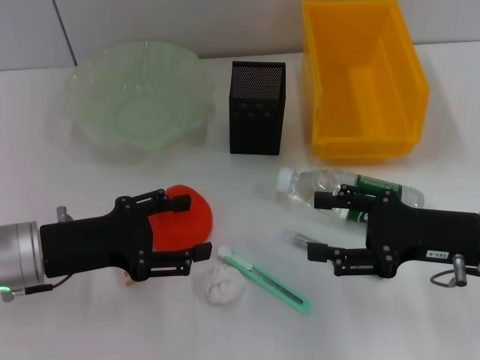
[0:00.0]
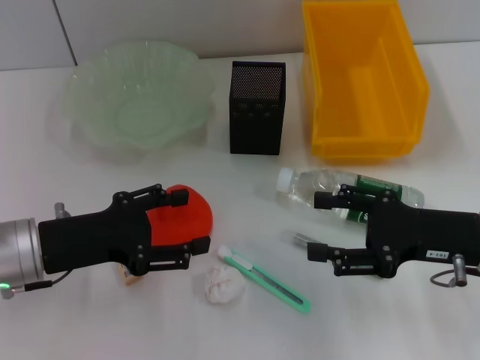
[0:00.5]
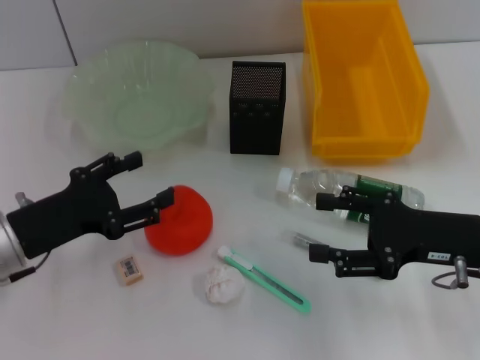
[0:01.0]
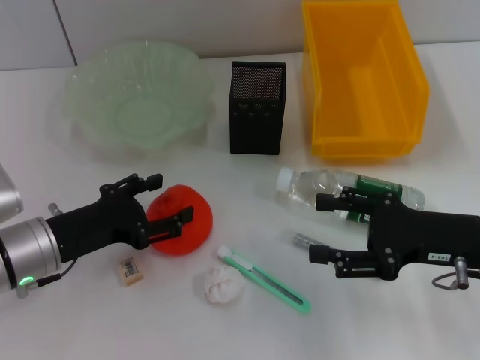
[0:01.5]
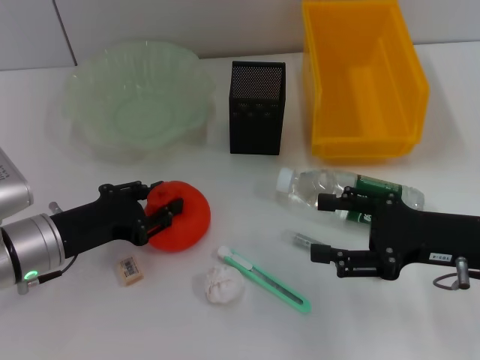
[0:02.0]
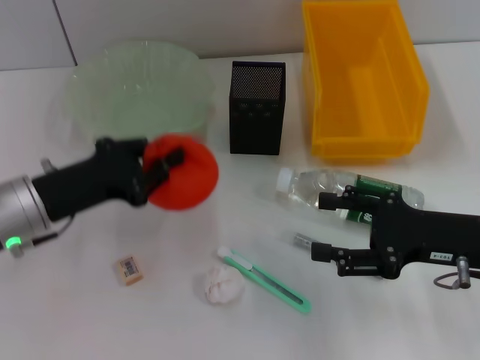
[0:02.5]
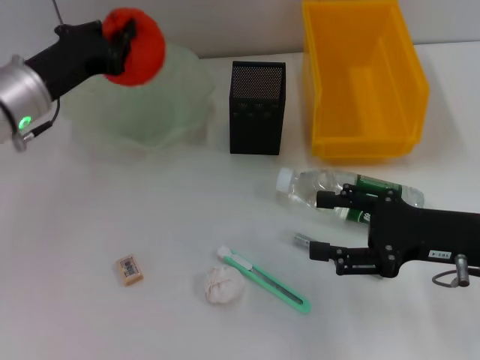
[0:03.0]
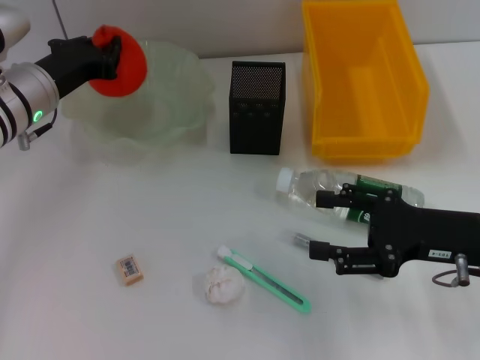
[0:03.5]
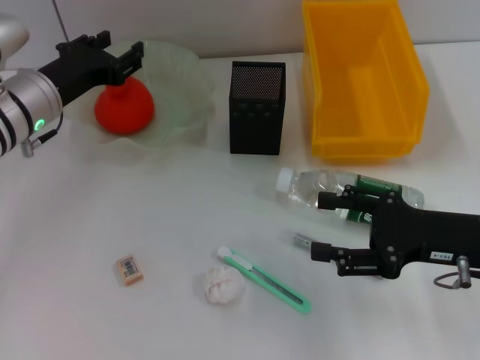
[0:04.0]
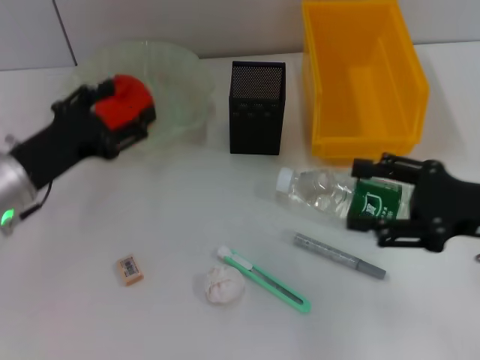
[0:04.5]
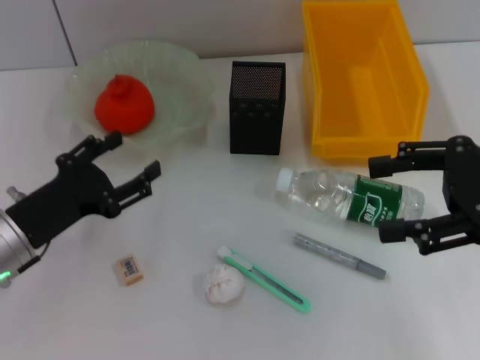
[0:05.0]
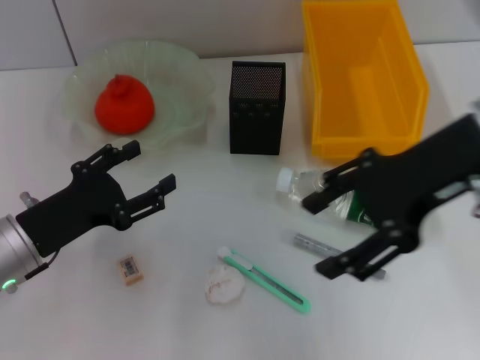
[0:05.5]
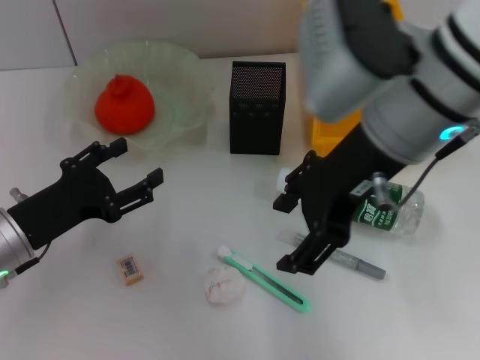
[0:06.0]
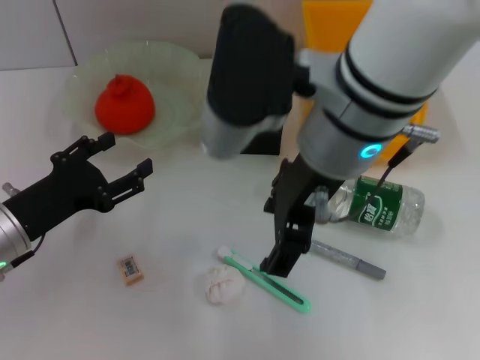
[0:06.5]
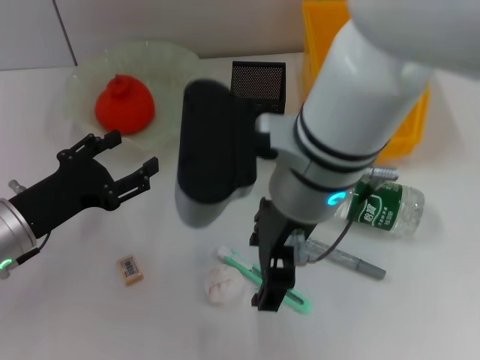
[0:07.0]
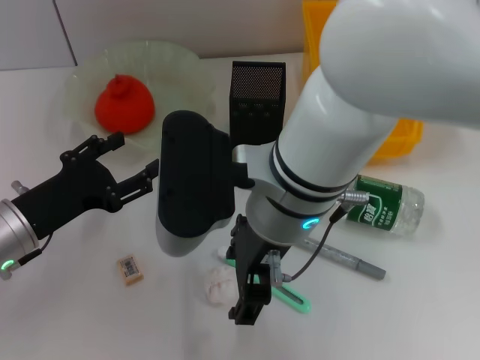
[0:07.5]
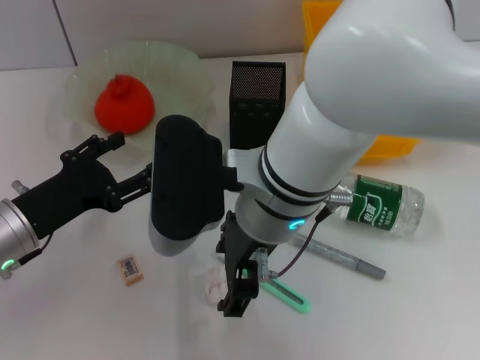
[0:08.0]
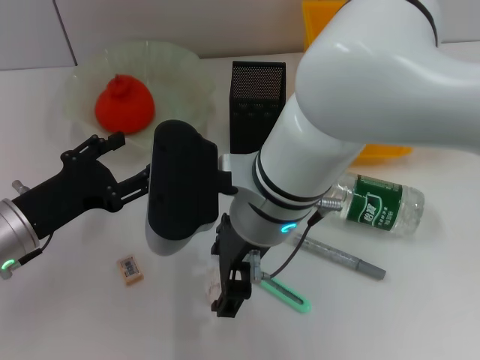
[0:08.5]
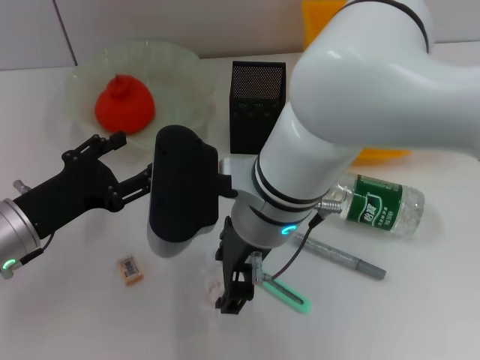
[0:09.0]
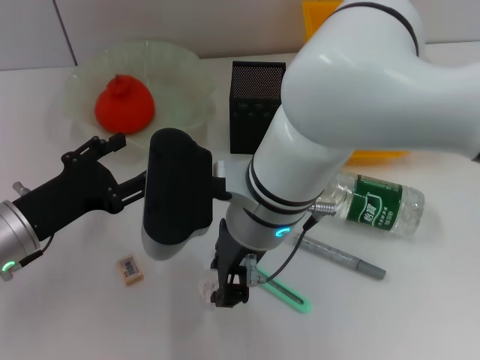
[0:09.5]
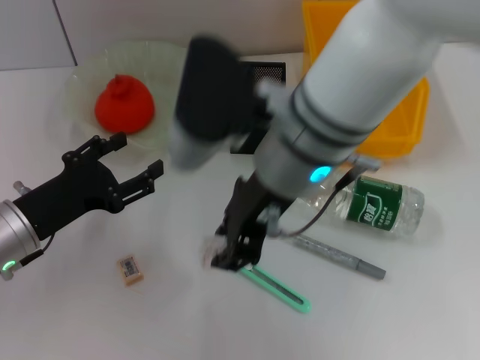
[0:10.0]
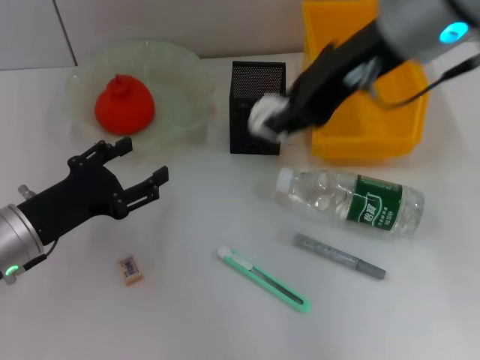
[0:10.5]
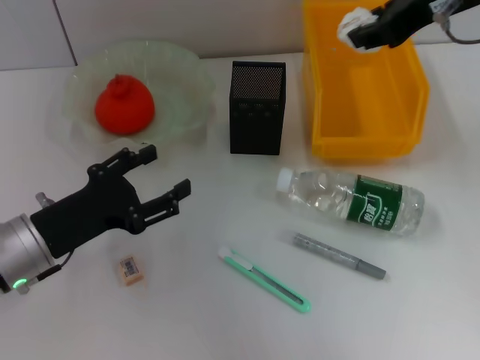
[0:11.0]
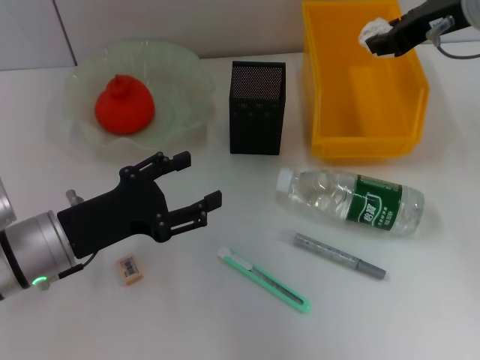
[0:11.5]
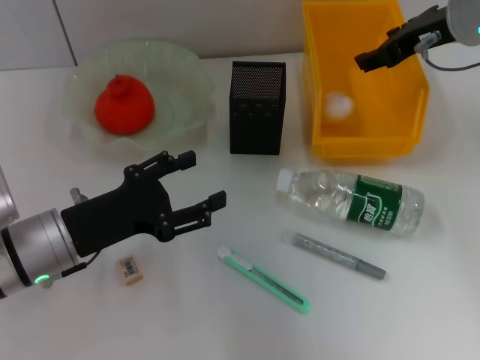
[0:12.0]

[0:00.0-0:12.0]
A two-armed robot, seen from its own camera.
Step, 0:00.0 to 0:02.0: Grab the orange with the left hand.
Step, 0:02.5 to 0:03.5: Place the orange into the fruit bowl with the left hand.
Step, 0:04.5 to 0:09.0: Grab the paper ball with the right hand.
0:00.0 to 0:02.0: The left gripper closes up.
0:02.0 to 0:04.0: The left gripper goes approximately 15 cm forward and upward.
0:04.0 to 0:06.0: The left gripper shifts roughly 15 cm backward and downward, and opens. The right gripper is displaced upward and to the left by roughly 25 cm.
0:06.0 to 0:08.0: The right gripper moves to the left and downward, some 15 cm.
0:08.0 to 0:10.0: The right gripper closes.
0:10.0 to 0:12.0: The right gripper moves to the right and forward, roughly 20 cm.

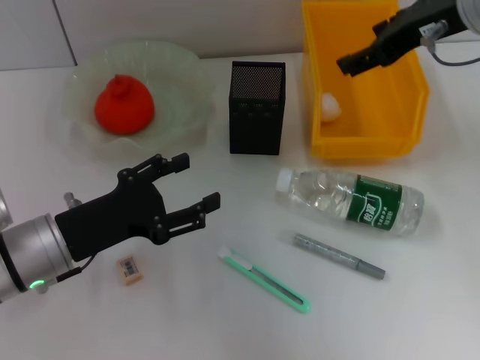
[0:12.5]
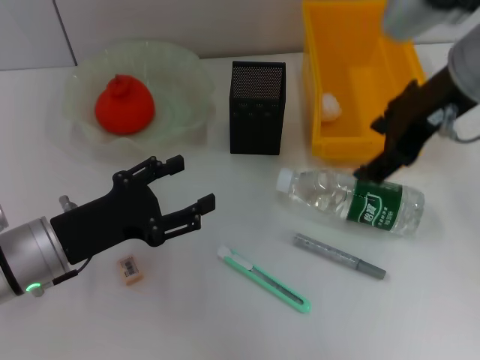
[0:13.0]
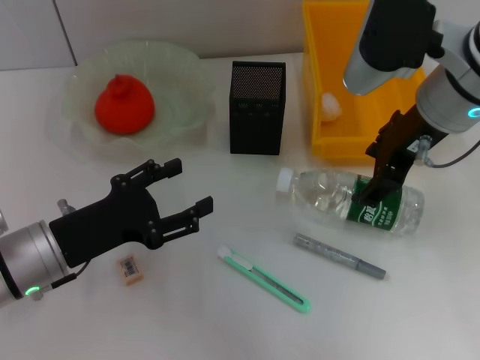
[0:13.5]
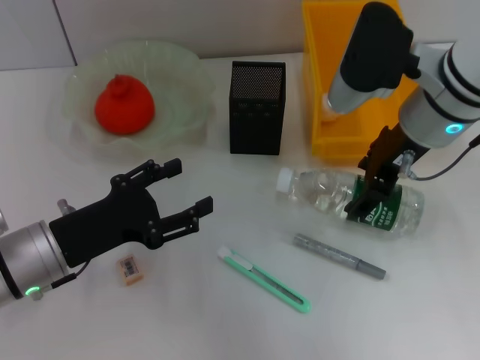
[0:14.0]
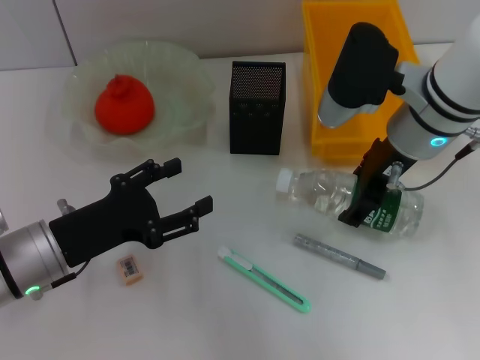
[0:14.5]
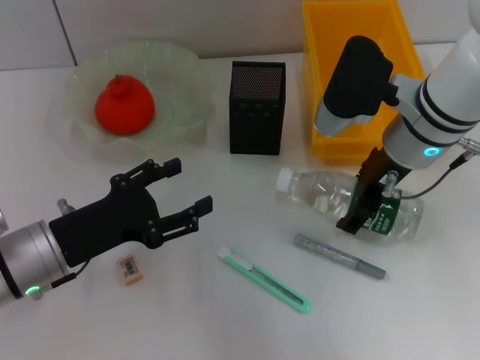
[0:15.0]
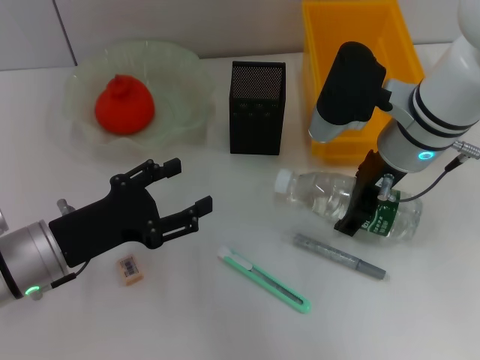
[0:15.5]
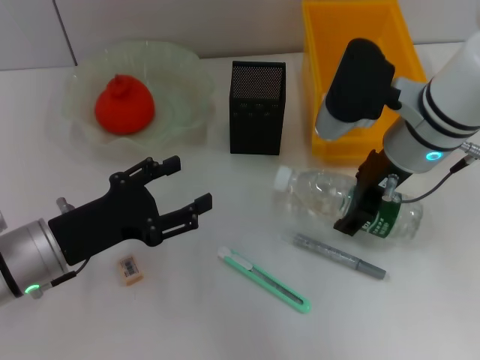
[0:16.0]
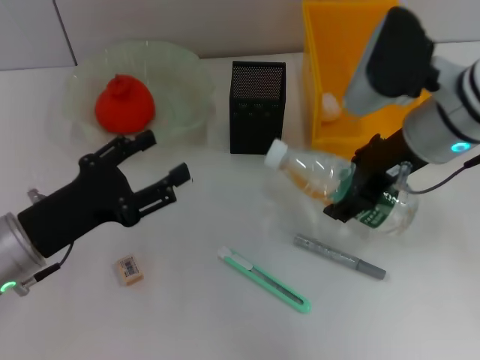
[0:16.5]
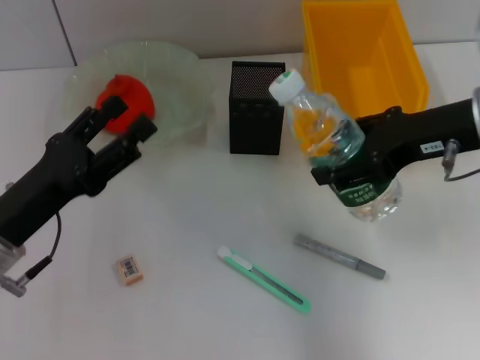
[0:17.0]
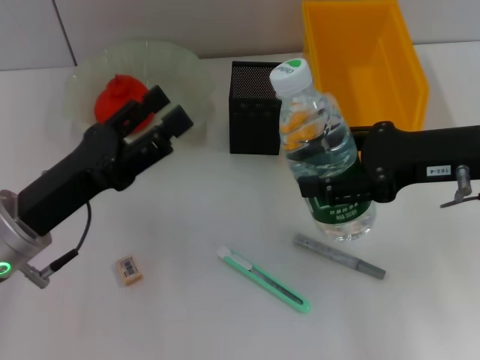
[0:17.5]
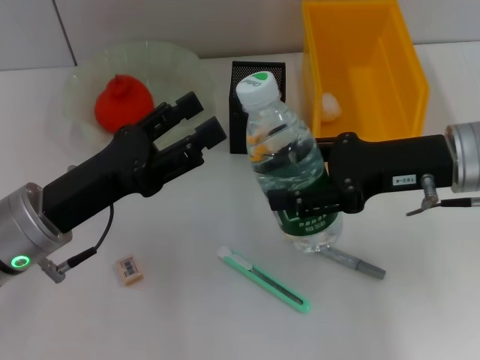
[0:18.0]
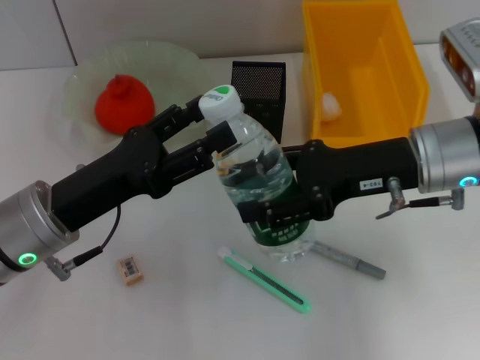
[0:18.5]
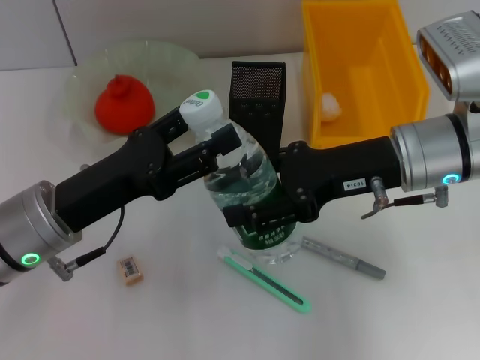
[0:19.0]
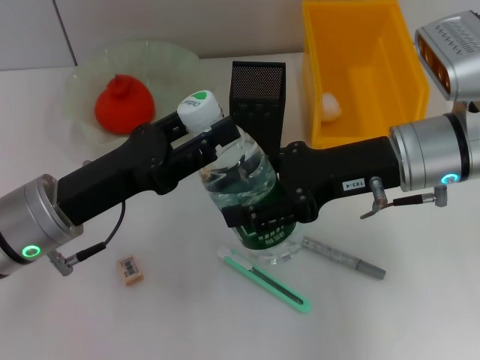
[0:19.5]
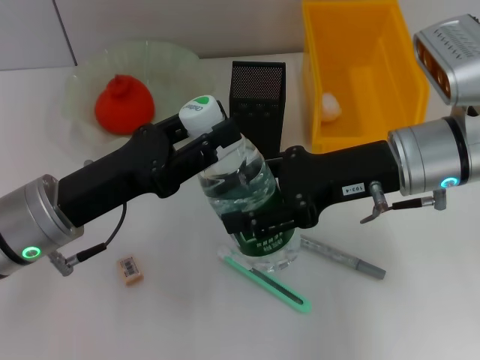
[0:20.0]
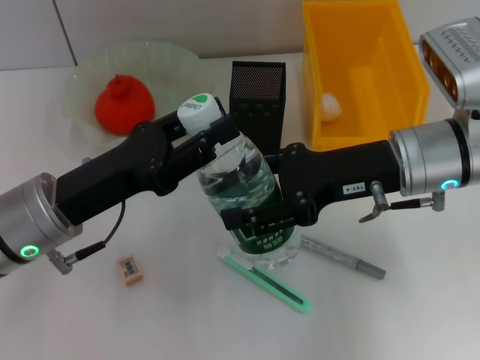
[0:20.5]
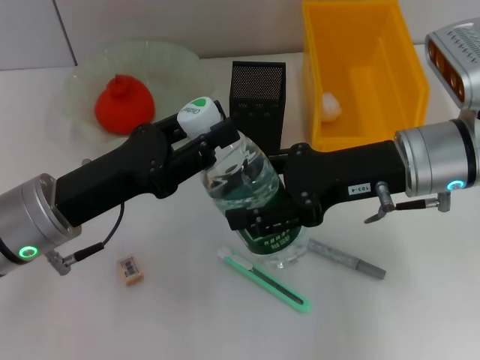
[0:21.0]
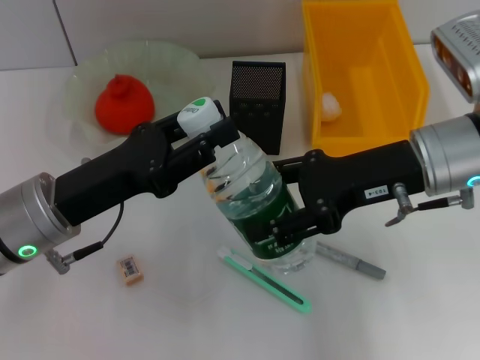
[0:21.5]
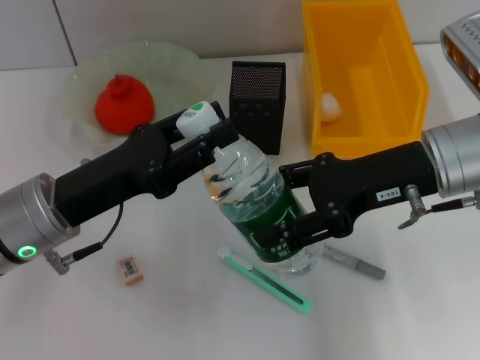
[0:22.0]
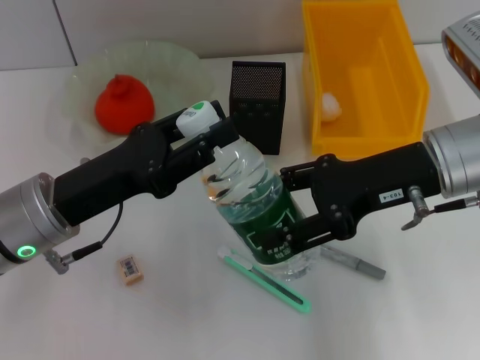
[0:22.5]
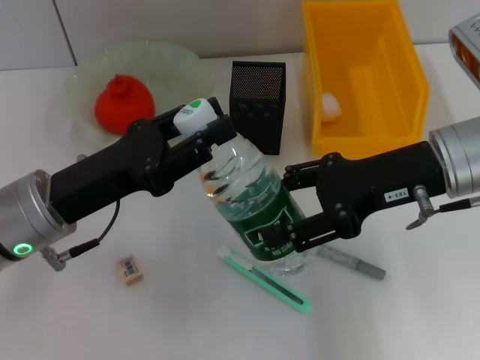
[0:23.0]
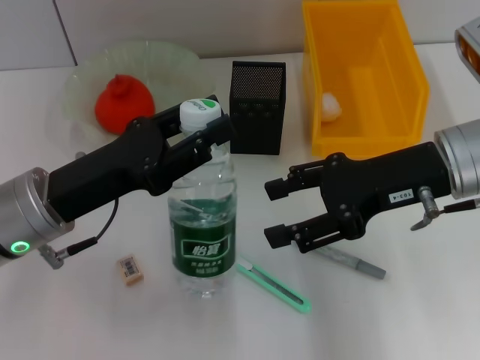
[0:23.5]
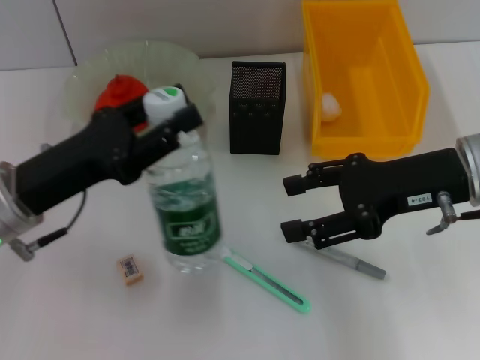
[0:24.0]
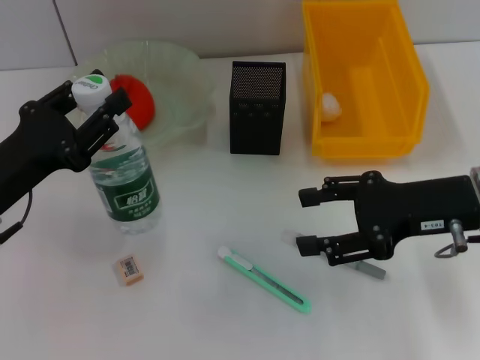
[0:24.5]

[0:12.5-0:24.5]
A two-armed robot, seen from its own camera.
Step, 0:12.5 to 0:15.5: Grab the water bottle with the right hand.
Step, 0:16.0 to 0:23.0: Pass the water bottle from the right hand to the left hand.
0:12.5 to 0:14.5: The right gripper is displaced downward by approximately 10 cm.
0:14.5 to 0:16.5: The grippers stay close to where they were, moving slightly.
0:18.5 to 0:20.5: The left gripper closes up.
0:20.5 to 0:22.5: The grippers move only a little.
0:22.5 to 0:24.5: The left gripper is displaced to the left by some 5 cm. The right gripper changes place by about 5 cm.

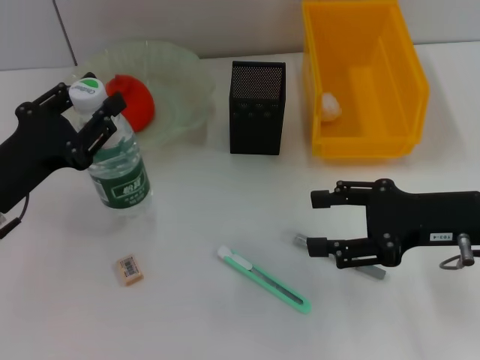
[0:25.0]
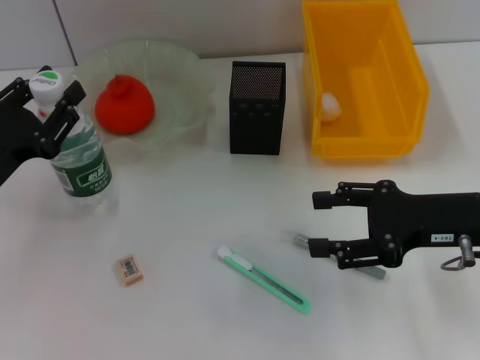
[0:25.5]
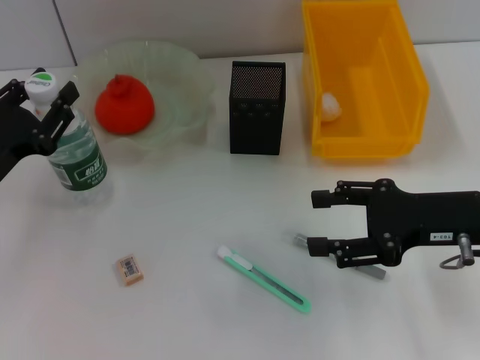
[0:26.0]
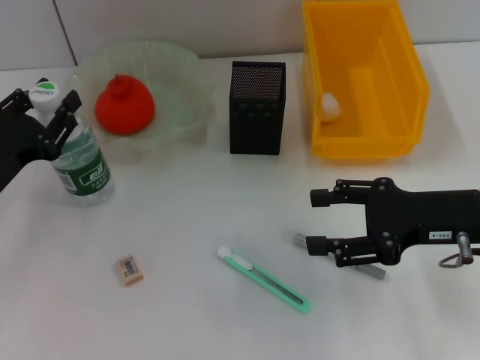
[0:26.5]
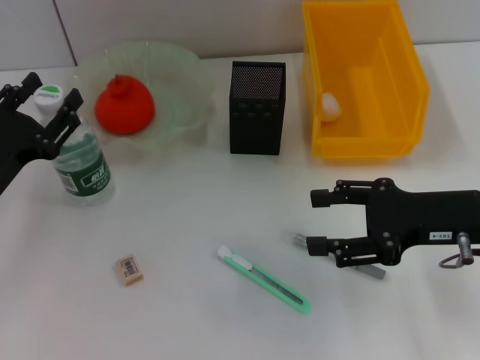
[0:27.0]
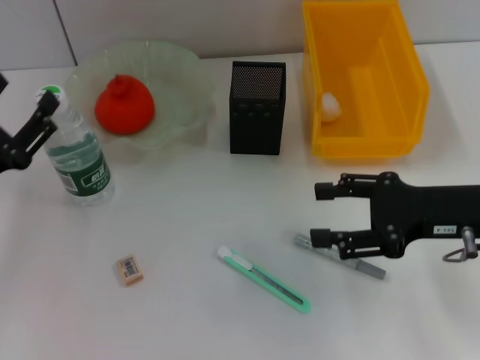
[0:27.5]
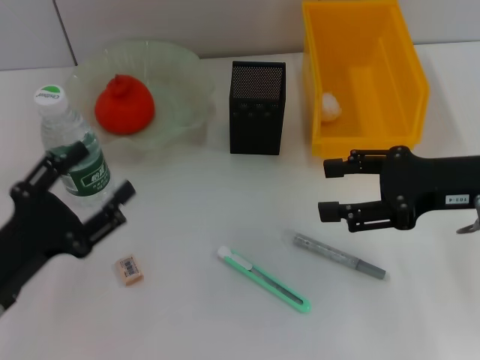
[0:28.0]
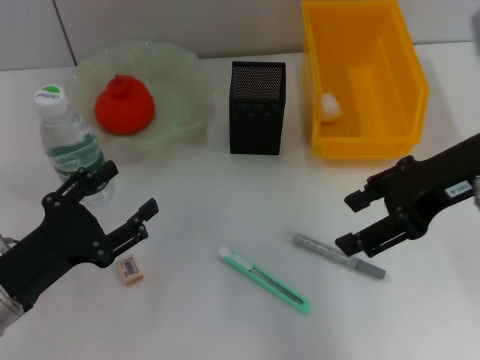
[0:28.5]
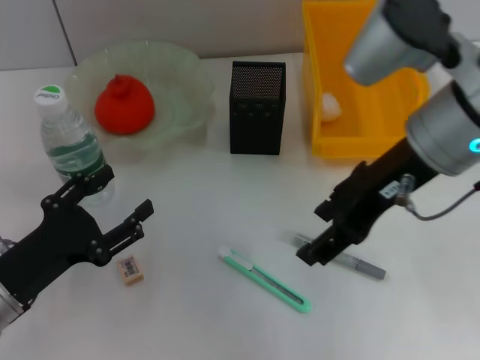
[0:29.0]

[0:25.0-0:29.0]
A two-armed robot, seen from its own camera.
0:25.0 to 0:27.0: The grippers make only small movements.
0:27.0 to 0:29.0: The left gripper is displaced backward by about 5 cm, and opens its fingers. Meanwhile the right gripper goes roughly 15 cm upward and to the left.
